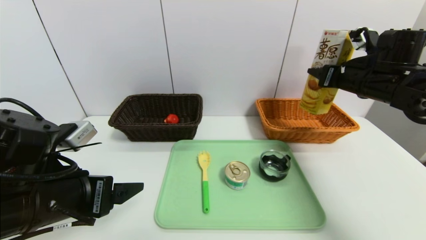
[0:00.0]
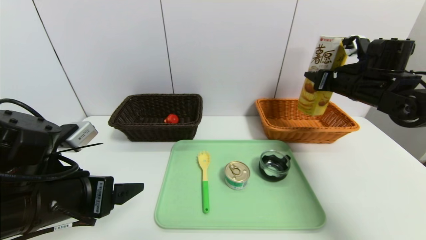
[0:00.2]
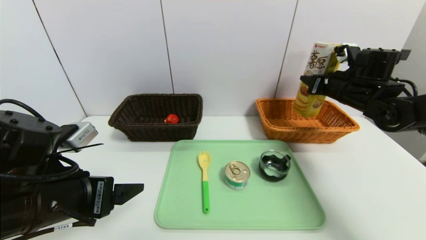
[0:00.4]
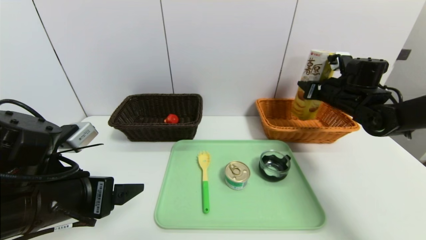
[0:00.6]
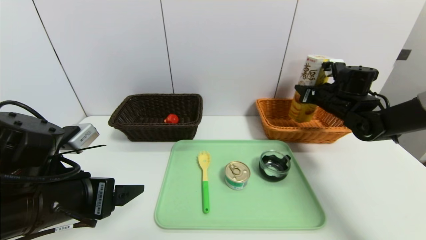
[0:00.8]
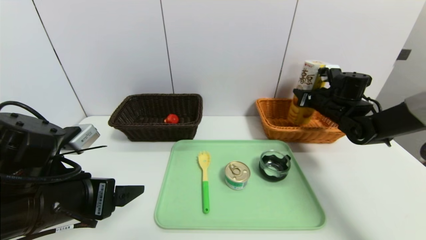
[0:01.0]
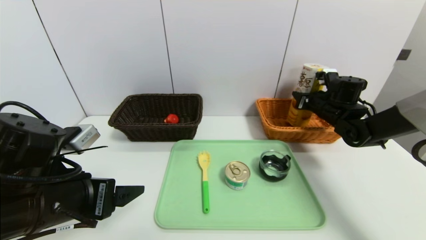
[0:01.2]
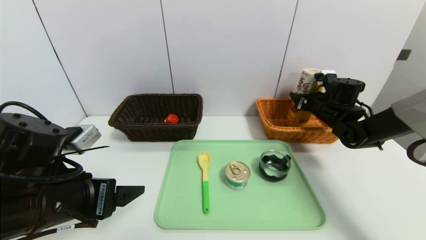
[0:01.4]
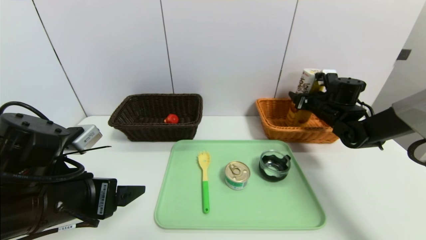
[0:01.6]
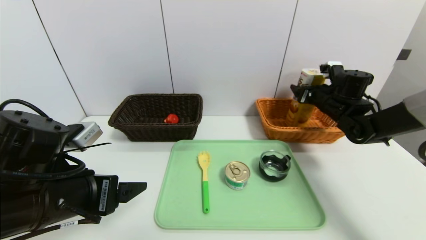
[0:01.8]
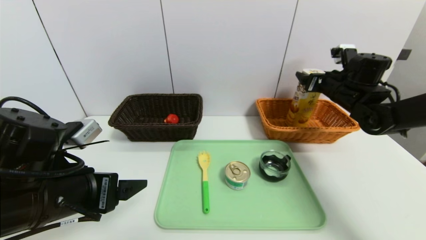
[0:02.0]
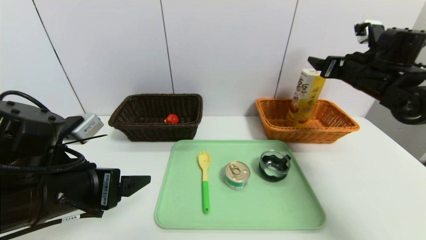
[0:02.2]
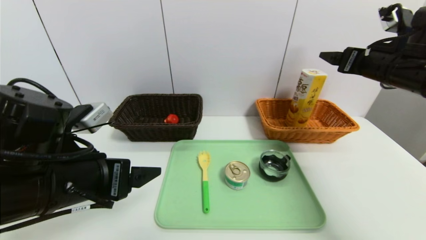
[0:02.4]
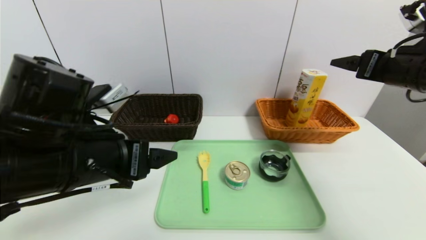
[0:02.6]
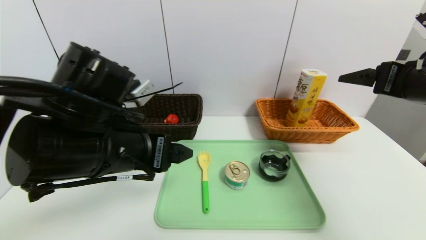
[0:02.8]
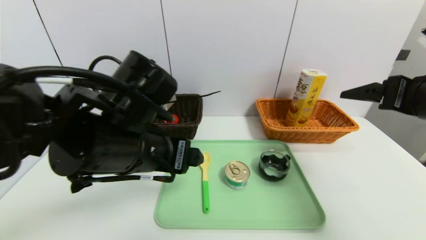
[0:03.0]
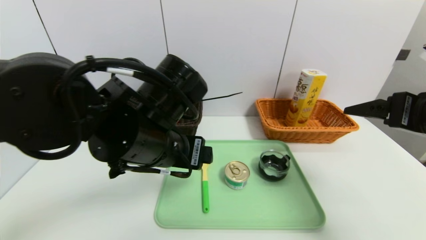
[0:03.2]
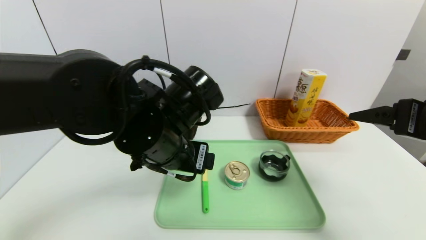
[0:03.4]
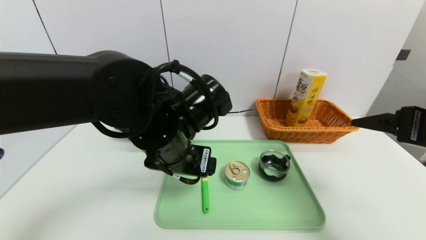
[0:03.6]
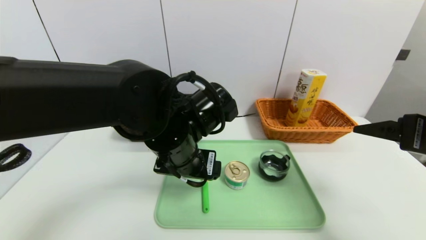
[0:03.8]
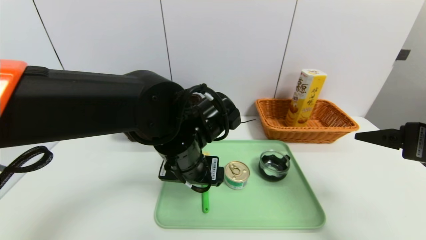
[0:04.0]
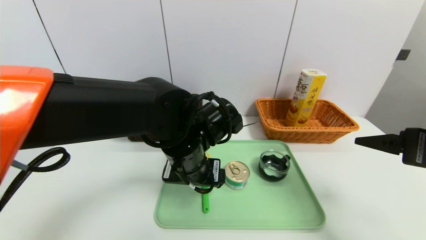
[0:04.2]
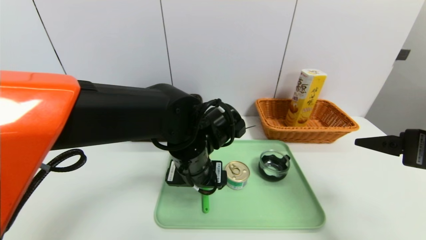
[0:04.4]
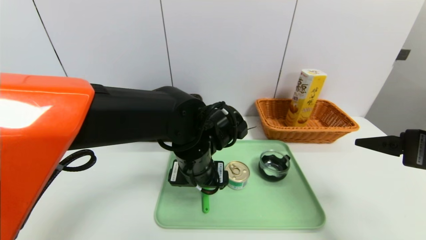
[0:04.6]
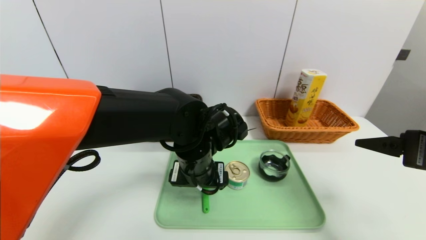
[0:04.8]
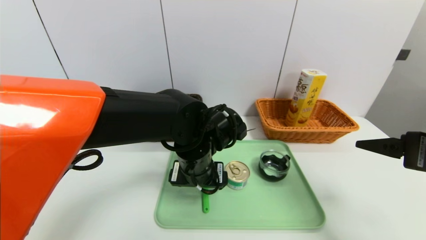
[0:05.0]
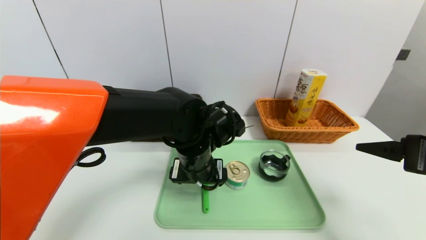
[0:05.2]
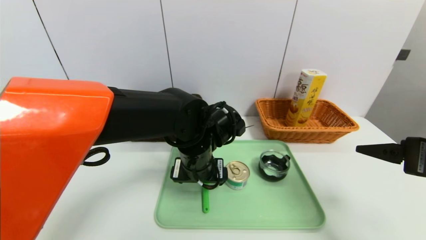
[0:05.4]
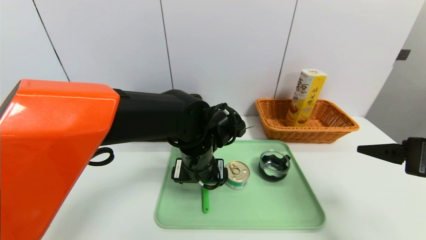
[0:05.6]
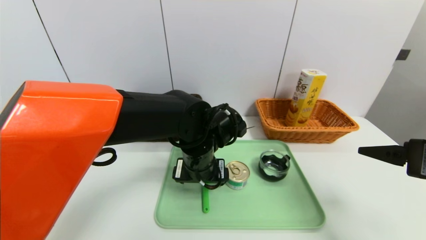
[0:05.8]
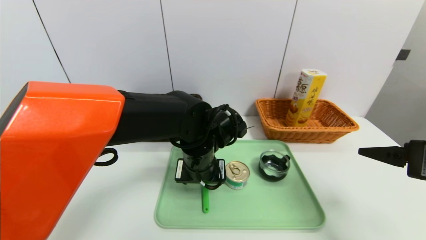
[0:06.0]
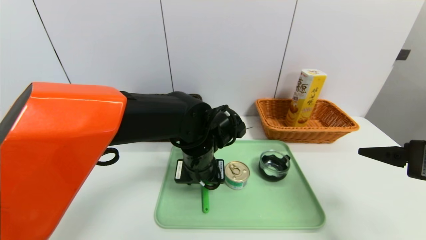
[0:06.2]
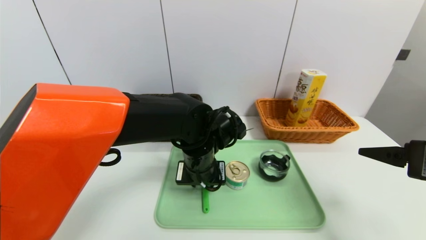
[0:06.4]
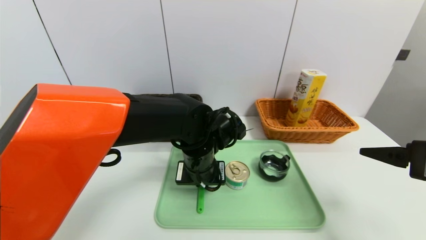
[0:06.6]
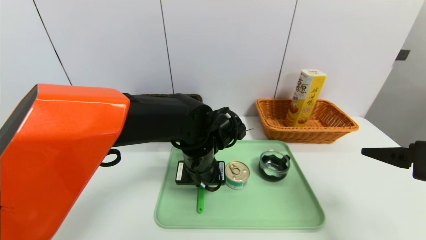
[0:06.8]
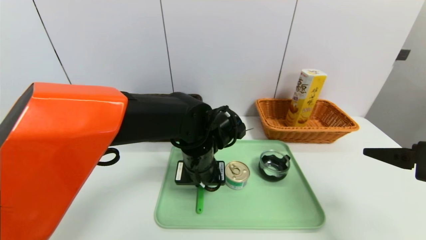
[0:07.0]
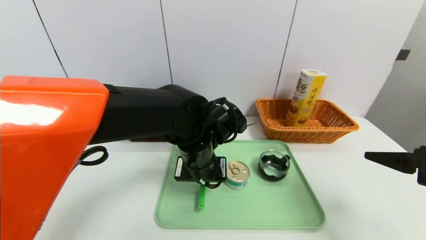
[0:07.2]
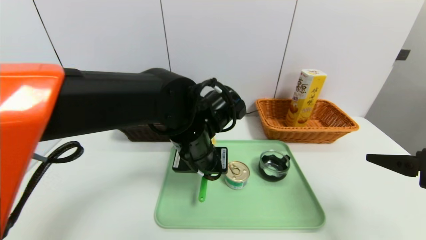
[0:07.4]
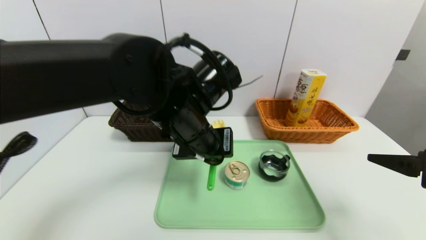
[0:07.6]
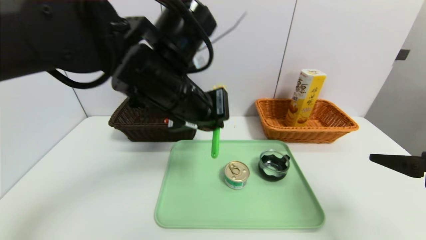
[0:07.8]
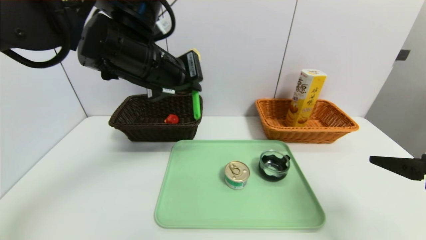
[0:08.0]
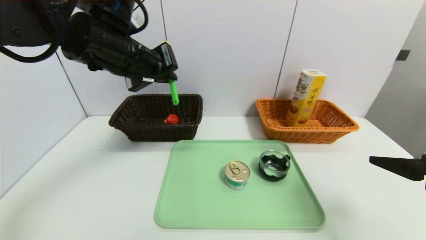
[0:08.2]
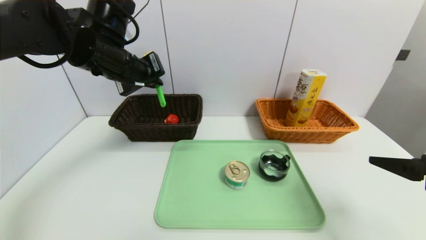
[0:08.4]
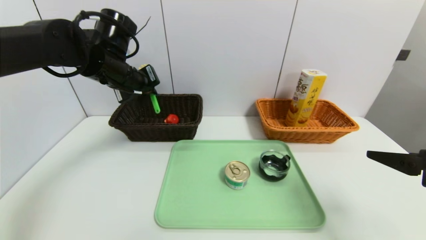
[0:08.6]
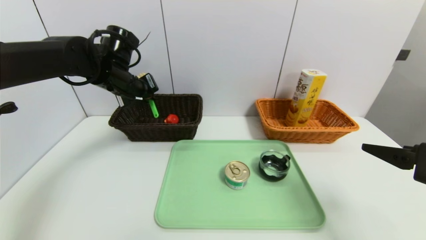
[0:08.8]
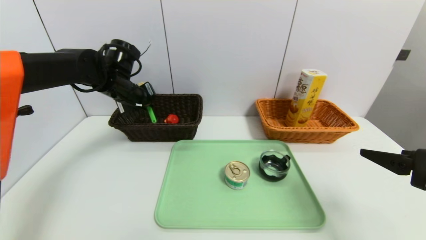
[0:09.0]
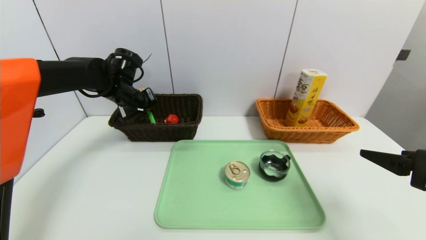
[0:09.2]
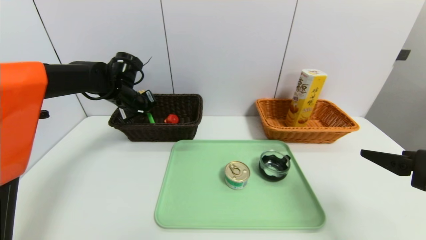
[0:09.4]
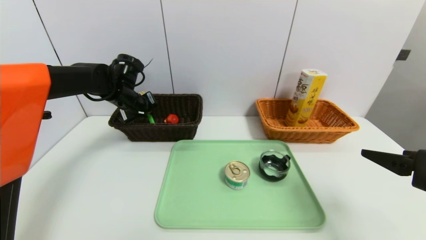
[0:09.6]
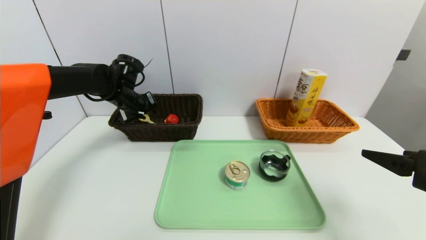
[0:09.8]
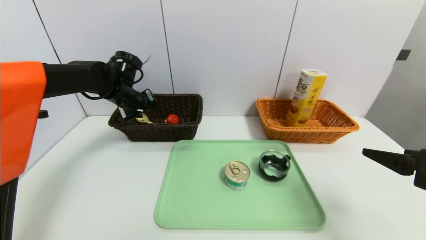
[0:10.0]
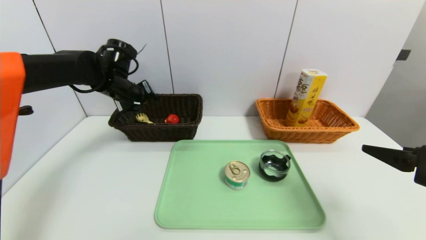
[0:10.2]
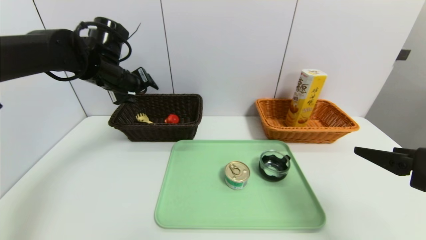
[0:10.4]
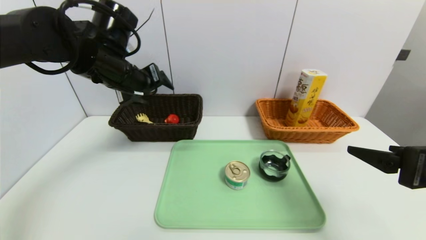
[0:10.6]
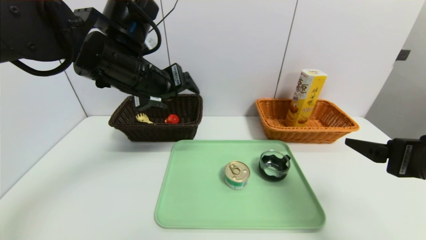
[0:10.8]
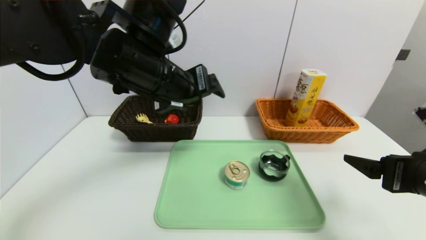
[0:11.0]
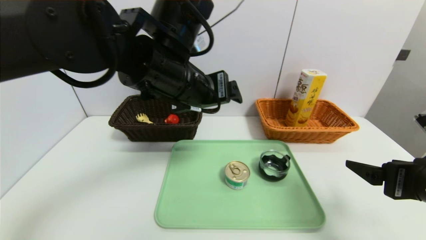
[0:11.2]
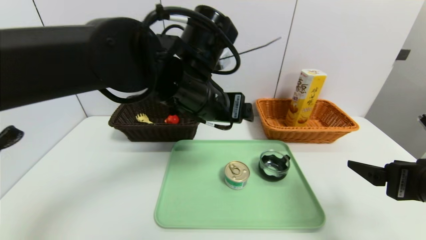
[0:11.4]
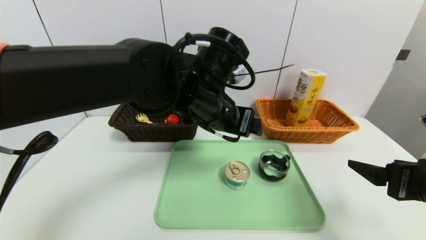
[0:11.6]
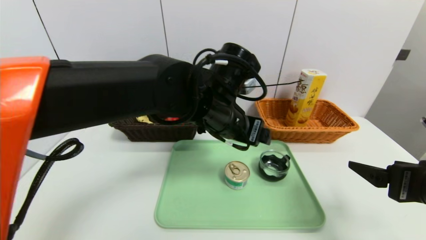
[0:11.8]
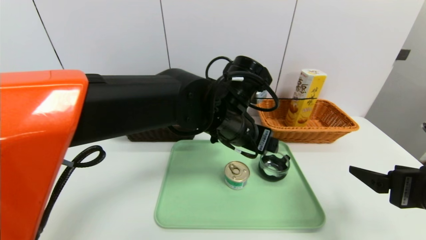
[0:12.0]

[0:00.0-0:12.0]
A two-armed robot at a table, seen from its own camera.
Task of the whole recording: place the food in the right basket with the right gripper, and place the non food items in the left basket with the left gripper.
Step, 0:00.0 to 0:02.0: Grasp the potato chips and put it in the right basket.
Step, 0:02.2 to 0:10.2: Grasp the back scratcher and put it in the left basket.
0:00.0 to 0:01.6: The right gripper moves downward and forward, about 15 cm, and opens its fingers.
0:01.6 to 0:03.0: The left gripper is displaced to the right and upward by roughly 10 cm. Meanwhile the right gripper moves backward and upward, approximately 30 cm.
0:03.0 to 0:04.4: The left gripper moves to the right, downward and forward, roughly 10 cm. The right gripper shifts by some 5 cm.
0:04.4 to 0:06.0: The grippers make only small movements.
0:06.0 to 0:07.6: The left gripper goes about 10 cm upward, and closes.
0:07.6 to 0:09.0: The left gripper heads to the left and forward, covering approximately 25 cm.
0:09.0 to 0:10.4: The left gripper shifts by roughly 5 cm, and opens.
0:10.4 to 0:12.0: The left gripper is displaced to the right and backward by some 25 cm.

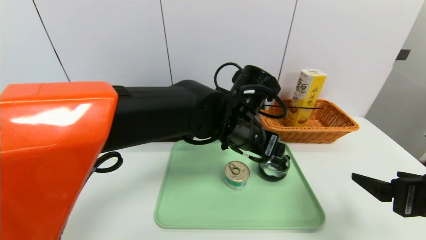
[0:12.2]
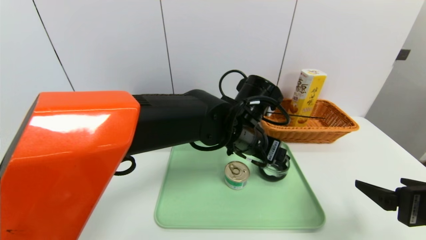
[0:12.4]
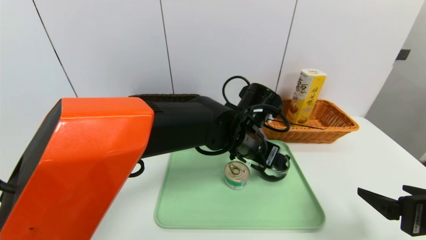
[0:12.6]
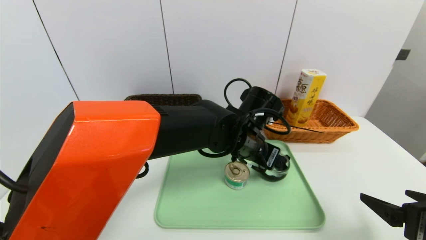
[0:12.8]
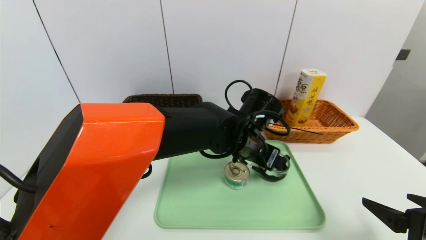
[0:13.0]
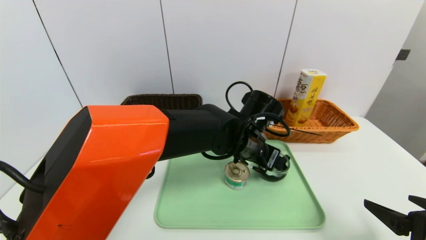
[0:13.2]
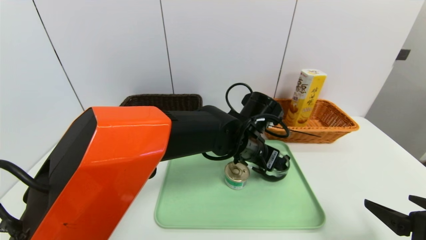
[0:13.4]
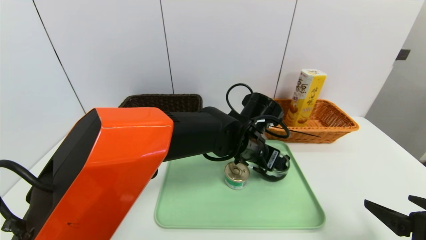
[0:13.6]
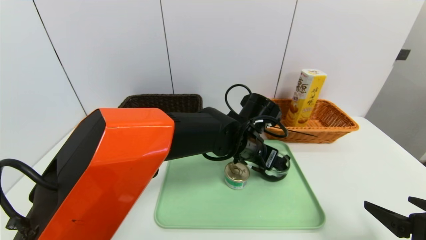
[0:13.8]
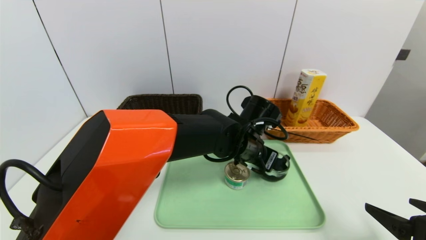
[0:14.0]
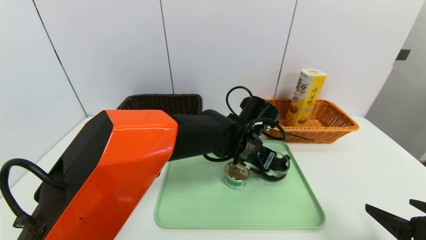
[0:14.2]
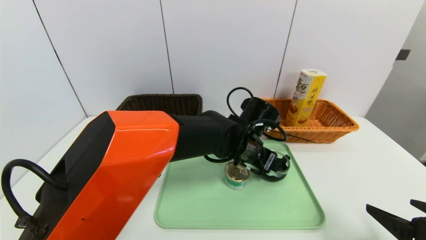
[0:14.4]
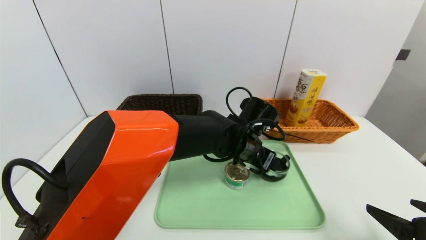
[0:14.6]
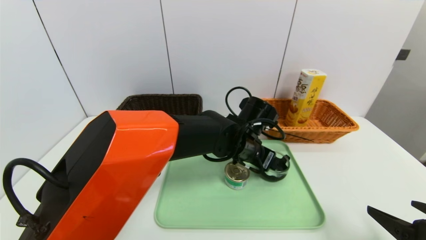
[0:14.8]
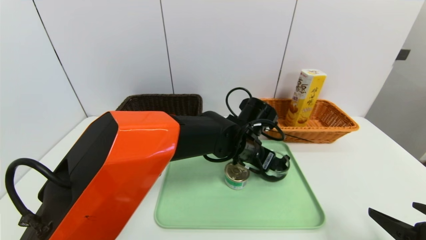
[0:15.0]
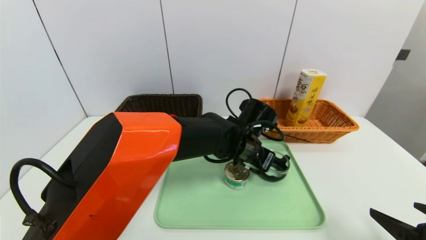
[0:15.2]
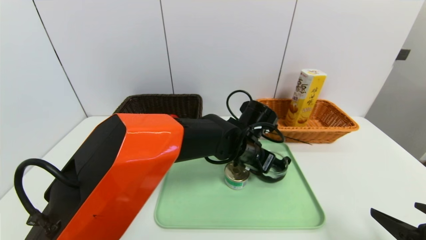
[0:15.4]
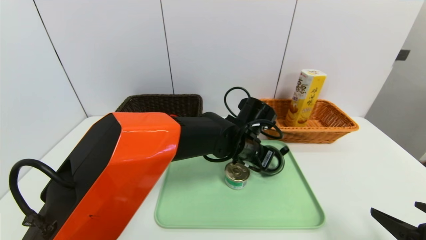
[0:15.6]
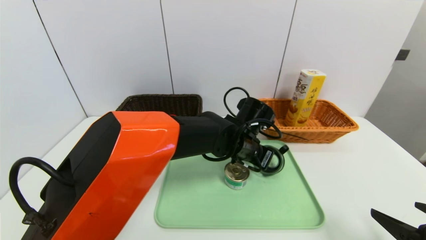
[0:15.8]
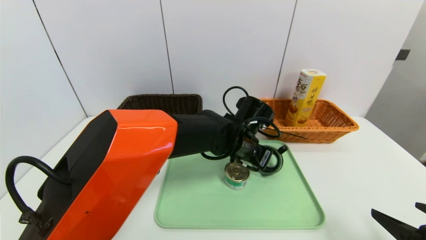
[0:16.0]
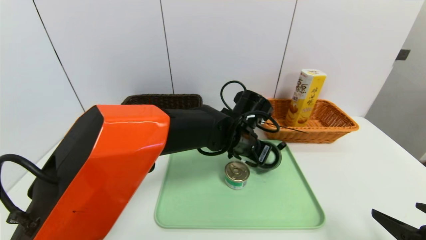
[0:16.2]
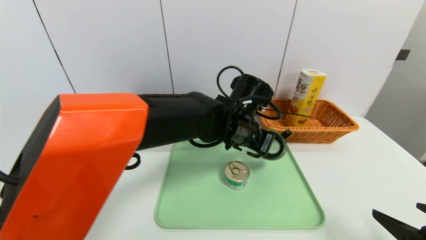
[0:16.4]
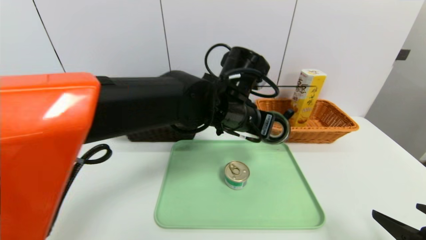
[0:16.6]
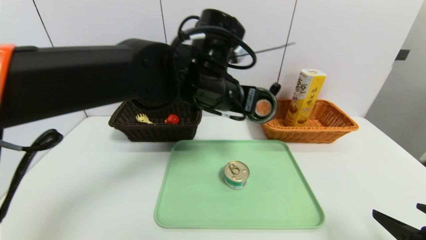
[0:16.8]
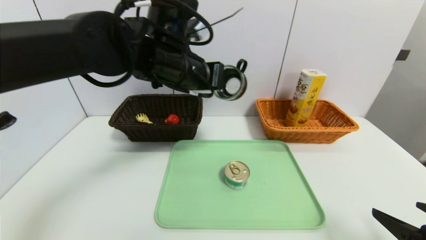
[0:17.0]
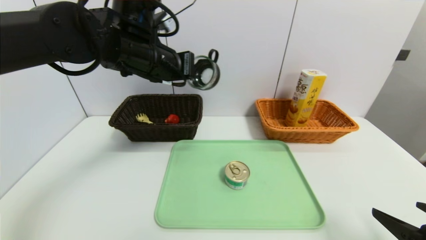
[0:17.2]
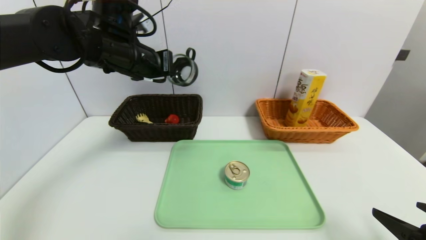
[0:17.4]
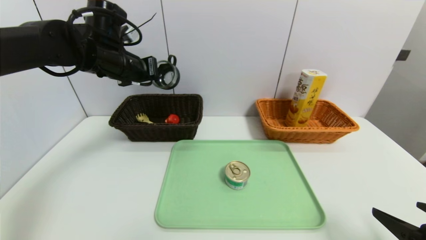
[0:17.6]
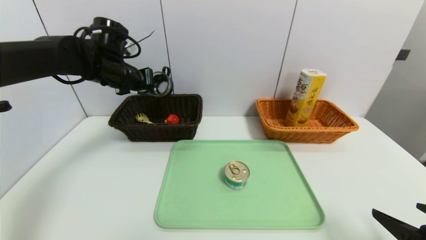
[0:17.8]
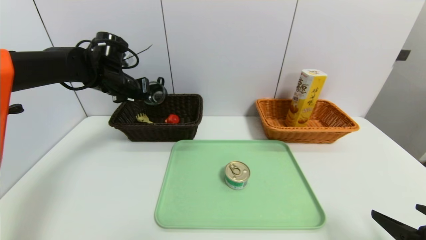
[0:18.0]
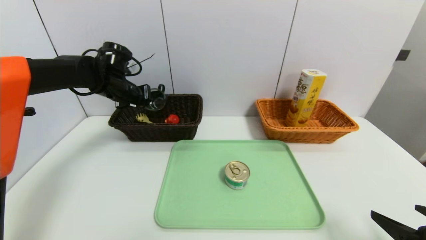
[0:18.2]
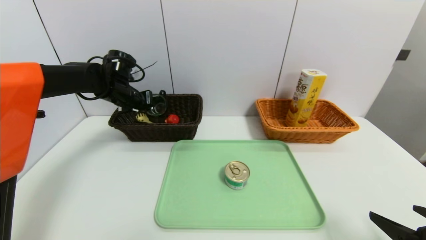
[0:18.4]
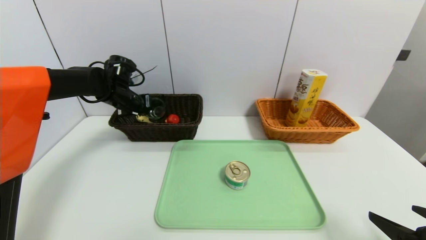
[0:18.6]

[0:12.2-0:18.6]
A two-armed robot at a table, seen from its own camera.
Task of the whole recording: place the food in the right basket with the right gripper, and place the non food items in the left basket with the left gripper.
0:12.2 to 0:13.8: The left gripper travels downward by some 5 cm.
0:13.8 to 0:15.4: The left gripper closes its fingers.
0:15.4 to 0:17.0: The left gripper travels upward and to the left by some 20 cm, and closes its fingers.
0:17.0 to 0:18.6: The left gripper heads to the left, forward and downward, covering approximately 25 cm.
